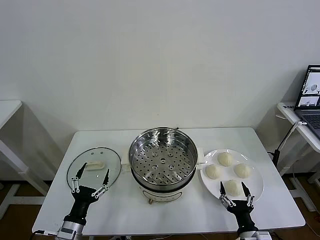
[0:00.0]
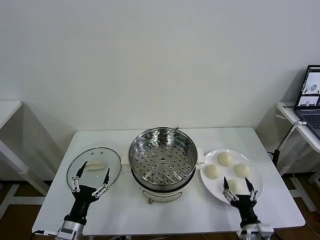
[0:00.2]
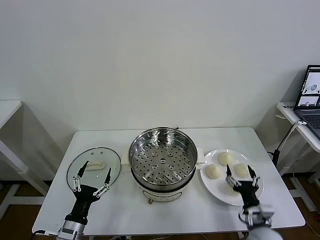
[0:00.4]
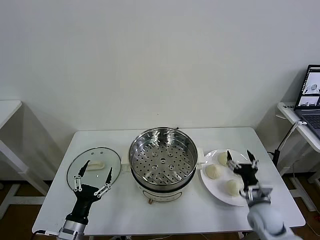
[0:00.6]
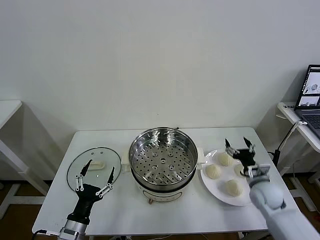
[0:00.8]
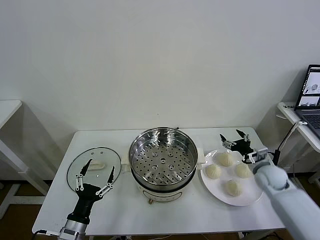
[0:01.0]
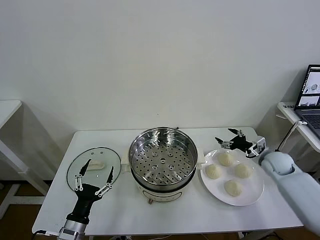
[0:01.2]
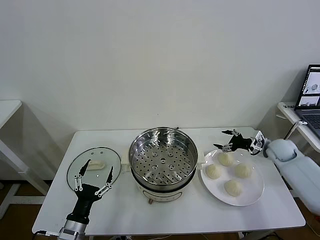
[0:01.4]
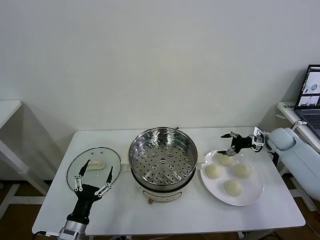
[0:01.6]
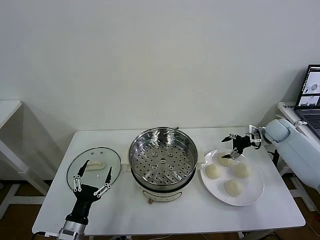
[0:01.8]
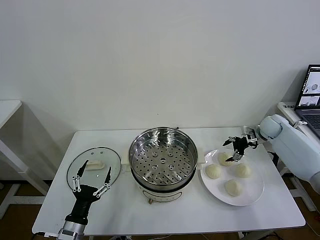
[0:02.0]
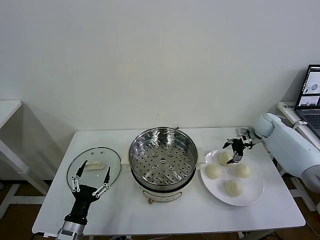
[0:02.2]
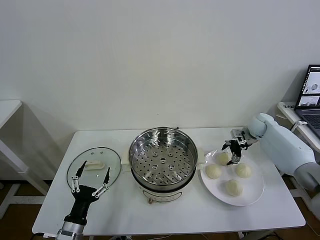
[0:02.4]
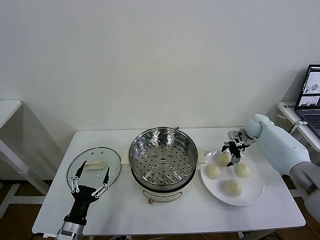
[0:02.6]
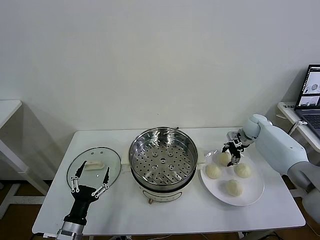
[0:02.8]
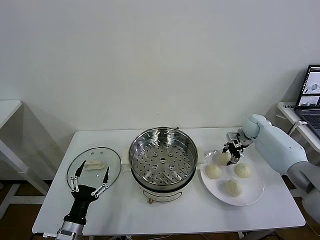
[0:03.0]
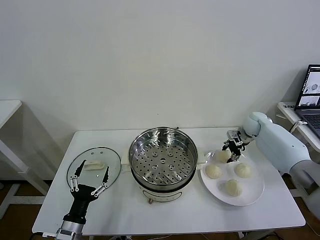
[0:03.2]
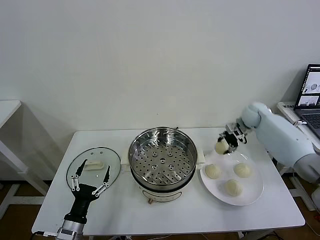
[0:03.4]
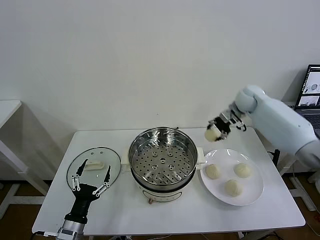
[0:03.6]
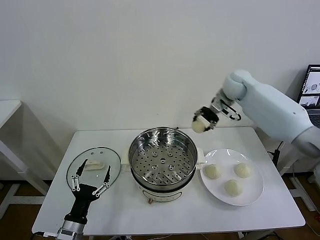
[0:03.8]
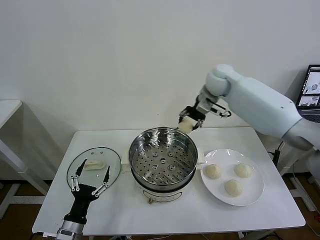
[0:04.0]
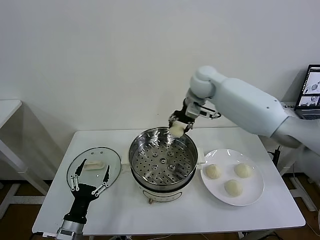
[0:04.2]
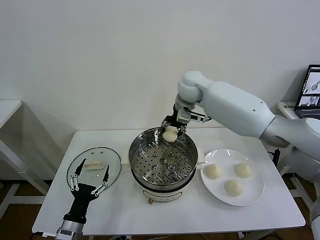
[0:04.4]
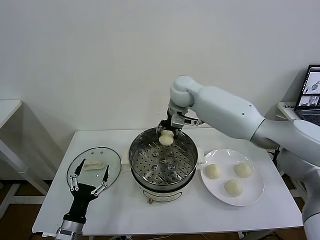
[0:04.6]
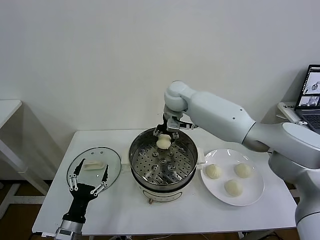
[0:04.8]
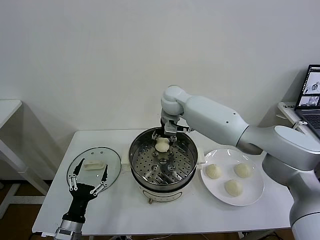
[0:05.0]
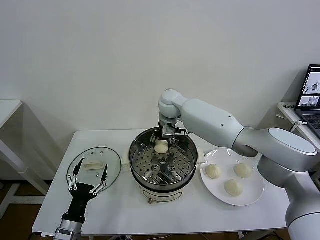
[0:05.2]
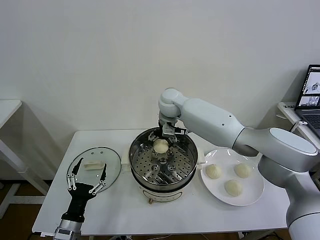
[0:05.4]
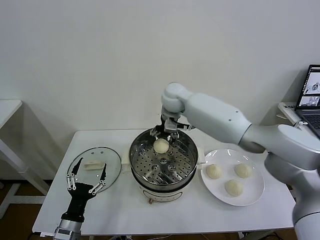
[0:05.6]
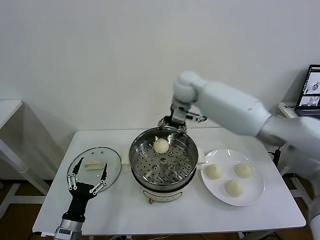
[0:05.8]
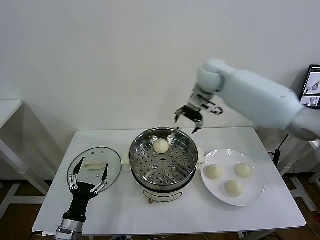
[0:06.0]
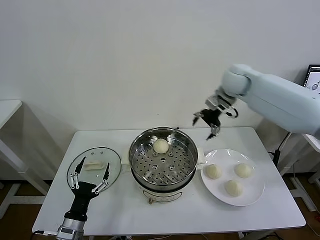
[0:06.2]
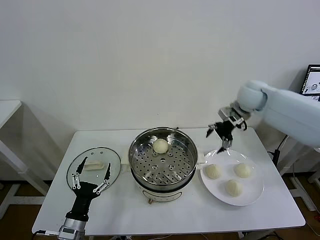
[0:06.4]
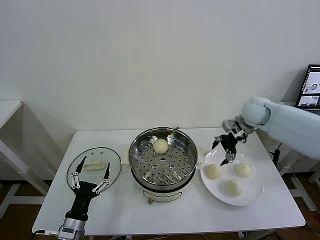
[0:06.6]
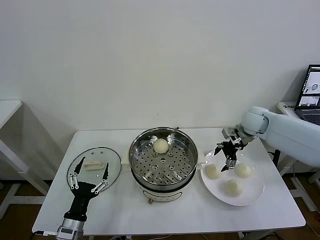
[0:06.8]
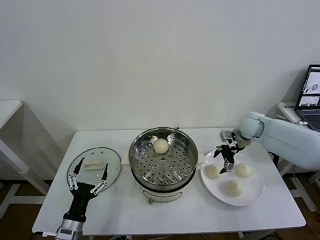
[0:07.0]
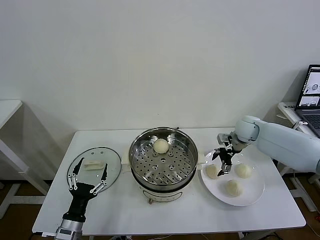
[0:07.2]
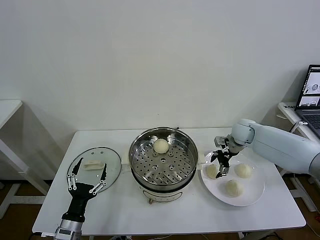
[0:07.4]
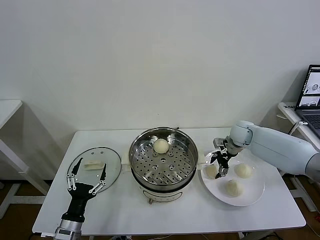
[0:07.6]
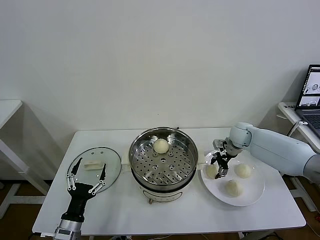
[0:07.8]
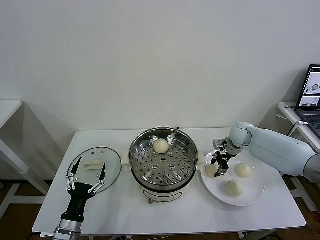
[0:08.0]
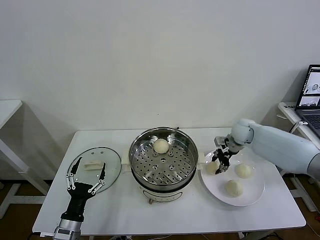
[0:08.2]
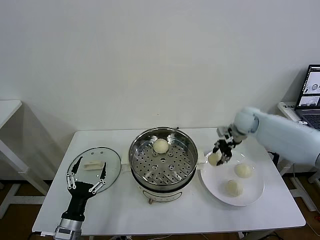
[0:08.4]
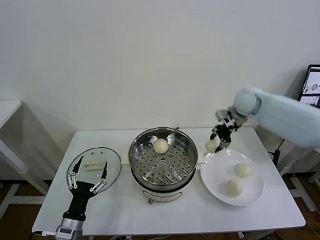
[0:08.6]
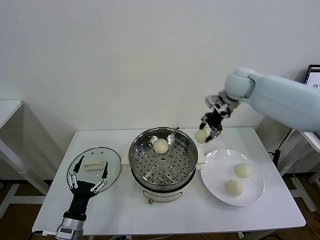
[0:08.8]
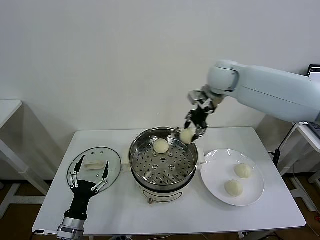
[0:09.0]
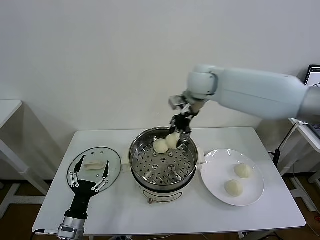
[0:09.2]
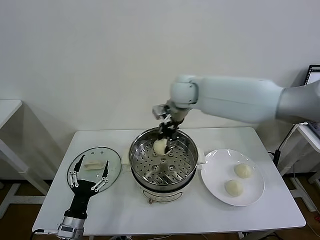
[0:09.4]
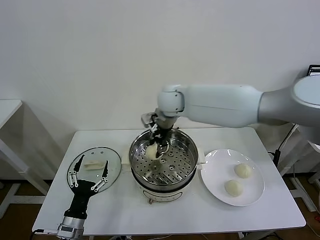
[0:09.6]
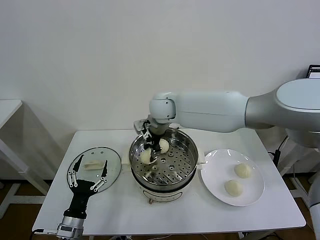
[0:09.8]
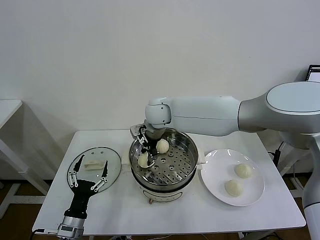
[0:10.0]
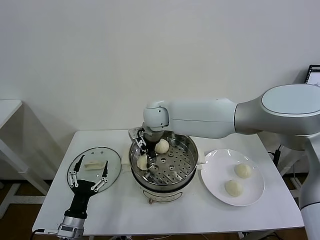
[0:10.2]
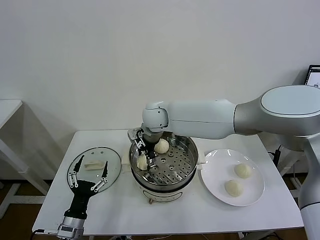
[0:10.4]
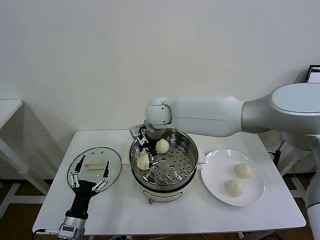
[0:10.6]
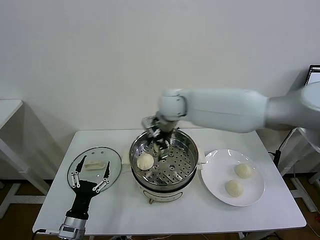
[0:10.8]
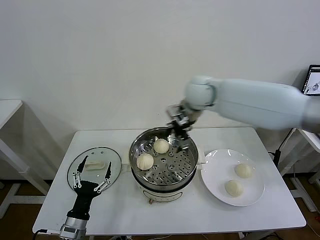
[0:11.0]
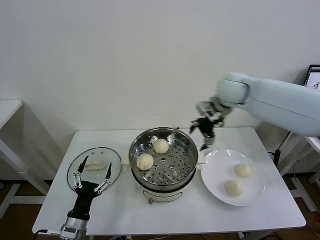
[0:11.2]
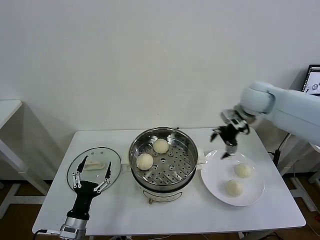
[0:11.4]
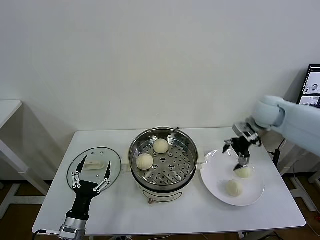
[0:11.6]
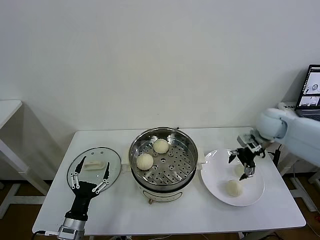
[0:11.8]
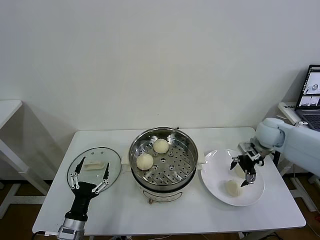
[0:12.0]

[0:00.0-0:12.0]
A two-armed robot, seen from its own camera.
Task of the whole recording: take steamed baozi put them in steamer then cover it.
Step, 0:00.0 to 0:02.8: Grasp the baozi in the plate with right gripper.
Step, 0:03.0 to 0:05.4: Place the baozi on the steamer with right gripper.
Step, 0:05.6 to 0:07.8: Grasp the baozi in the plate with right gripper.
Step, 0:08.0 to 0:10.4: Place the baozi on the steamer with right gripper.
0:01.6 to 0:03.0: The right gripper moves to the left and forward, approximately 10 cm, and closes its fingers.
0:03.0 to 0:04.4: The right gripper heads to the left and upward, covering about 35 cm.
0:04.4 to 0:06.0: The right gripper is displaced to the right by about 10 cm, and opens its fingers.
0:06.0 to 0:07.6: The right gripper travels downward and to the right by roughly 25 cm.
0:07.6 to 0:09.0: The right gripper heads upward and to the left, covering roughly 30 cm, and closes.
0:09.0 to 0:10.4: The right gripper travels to the left and downward by roughly 20 cm, and opens.
0:10.4 to 0:12.0: The right gripper moves to the right, roughly 40 cm.

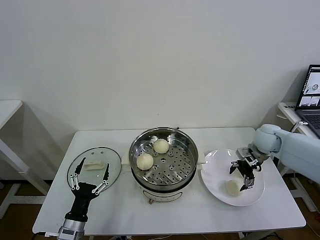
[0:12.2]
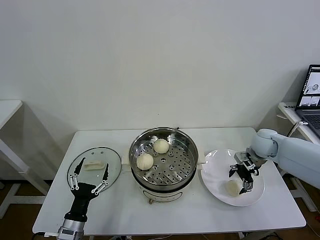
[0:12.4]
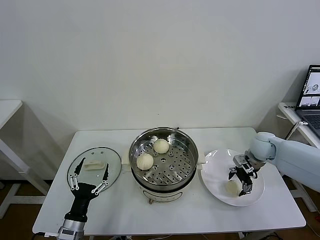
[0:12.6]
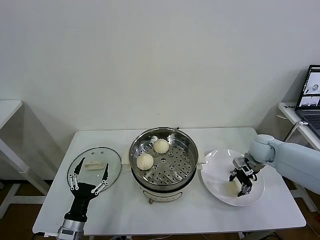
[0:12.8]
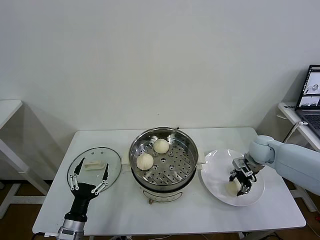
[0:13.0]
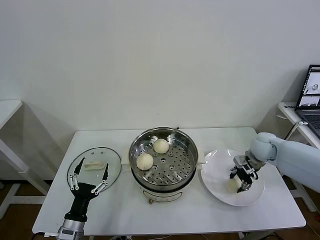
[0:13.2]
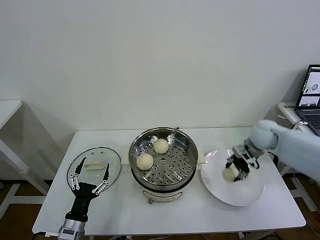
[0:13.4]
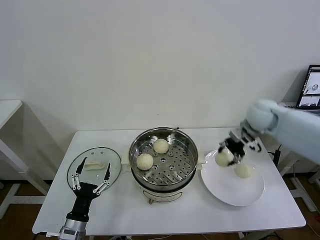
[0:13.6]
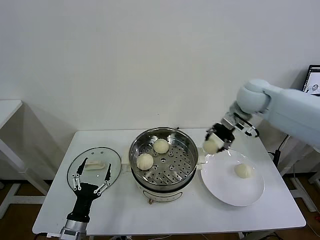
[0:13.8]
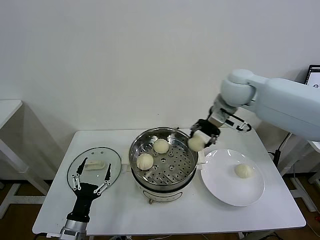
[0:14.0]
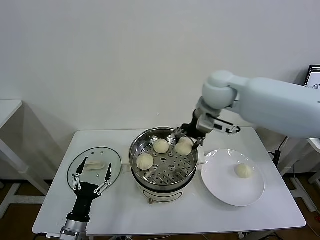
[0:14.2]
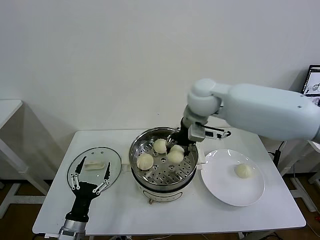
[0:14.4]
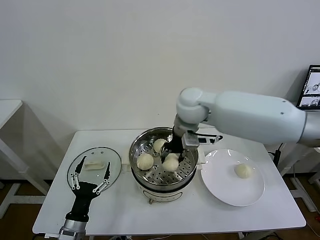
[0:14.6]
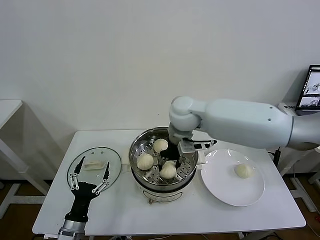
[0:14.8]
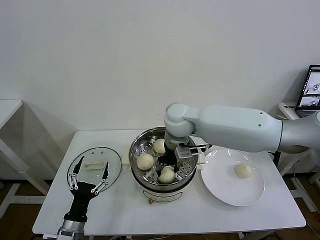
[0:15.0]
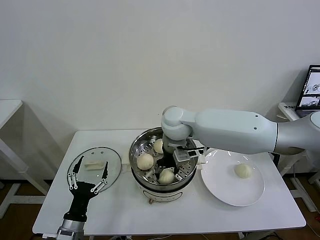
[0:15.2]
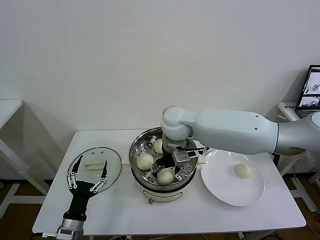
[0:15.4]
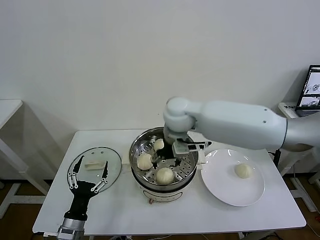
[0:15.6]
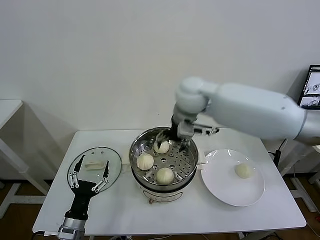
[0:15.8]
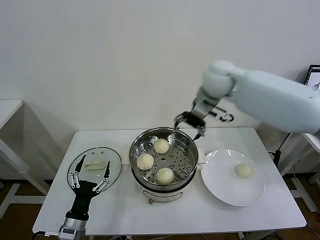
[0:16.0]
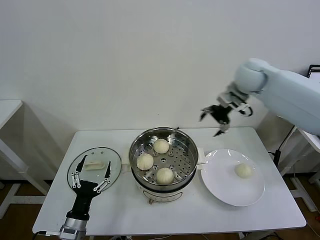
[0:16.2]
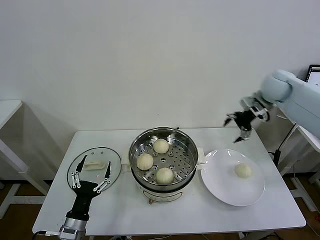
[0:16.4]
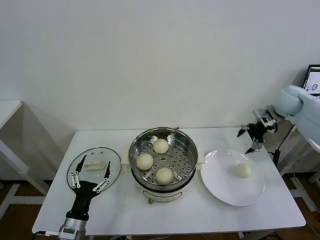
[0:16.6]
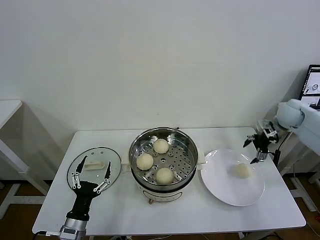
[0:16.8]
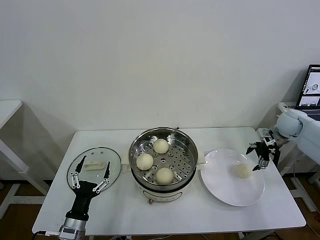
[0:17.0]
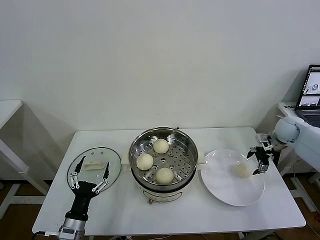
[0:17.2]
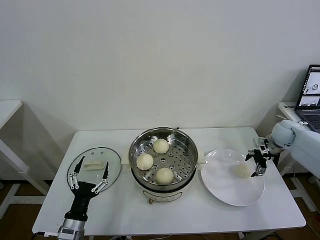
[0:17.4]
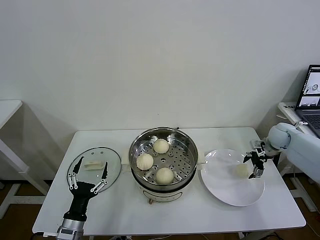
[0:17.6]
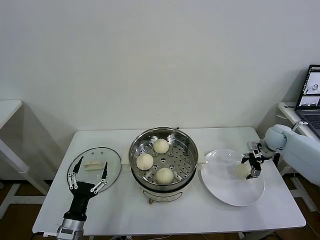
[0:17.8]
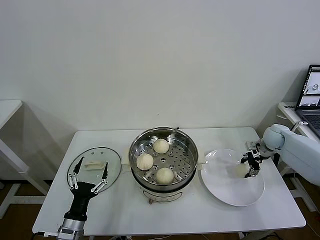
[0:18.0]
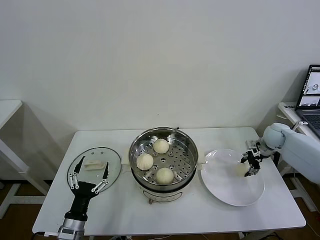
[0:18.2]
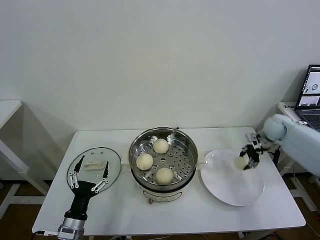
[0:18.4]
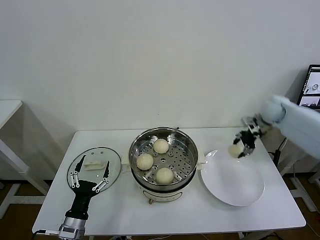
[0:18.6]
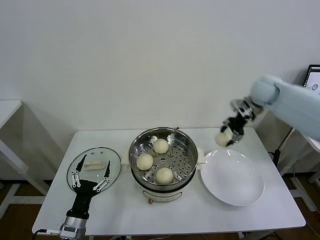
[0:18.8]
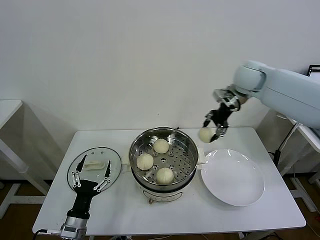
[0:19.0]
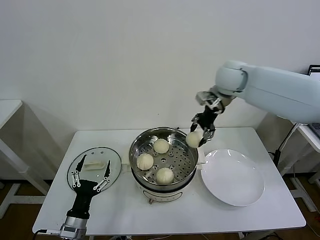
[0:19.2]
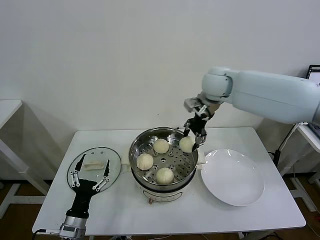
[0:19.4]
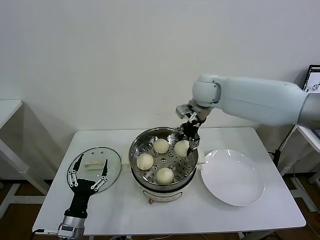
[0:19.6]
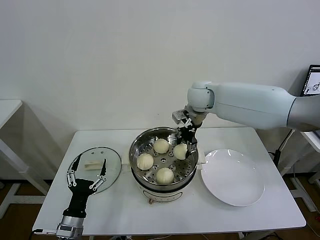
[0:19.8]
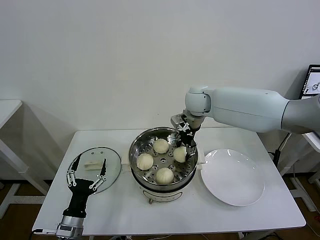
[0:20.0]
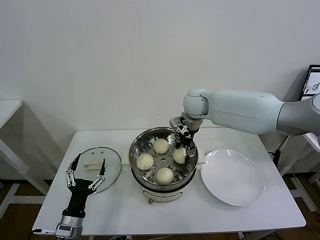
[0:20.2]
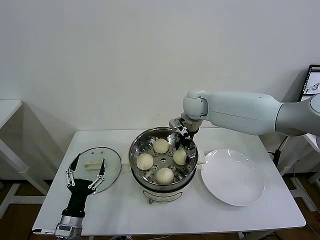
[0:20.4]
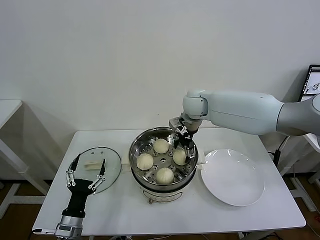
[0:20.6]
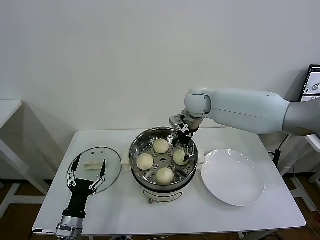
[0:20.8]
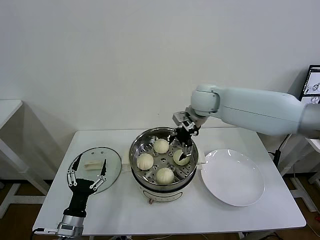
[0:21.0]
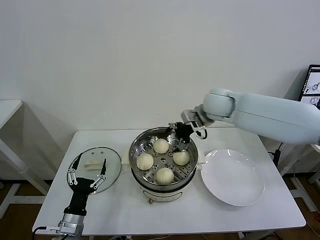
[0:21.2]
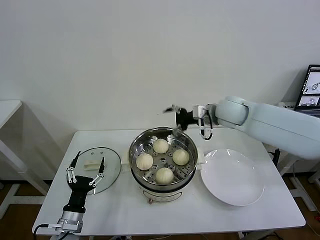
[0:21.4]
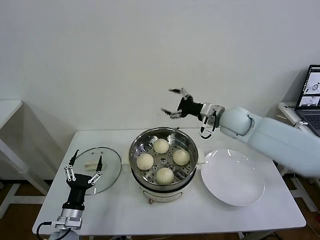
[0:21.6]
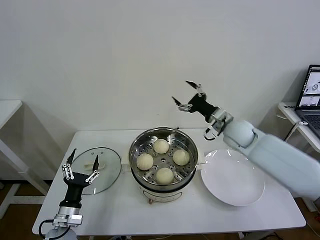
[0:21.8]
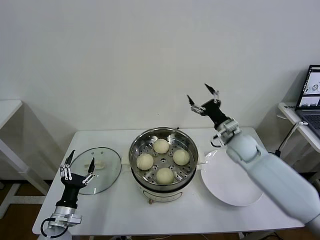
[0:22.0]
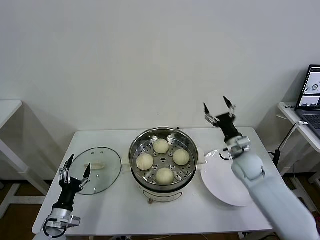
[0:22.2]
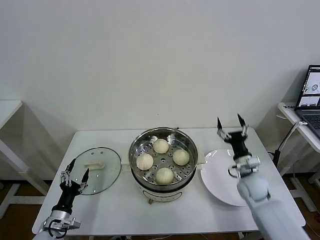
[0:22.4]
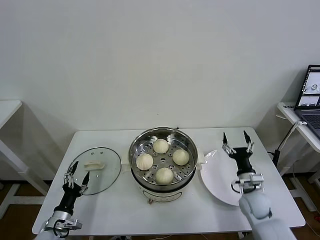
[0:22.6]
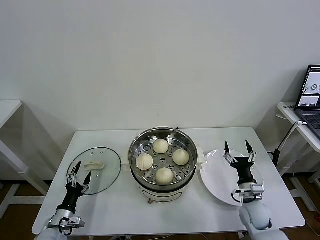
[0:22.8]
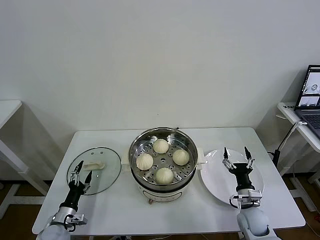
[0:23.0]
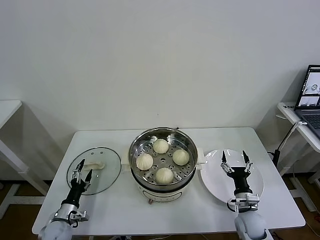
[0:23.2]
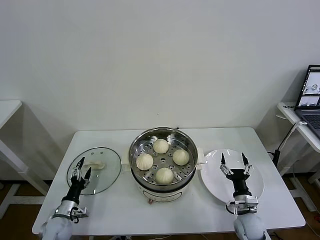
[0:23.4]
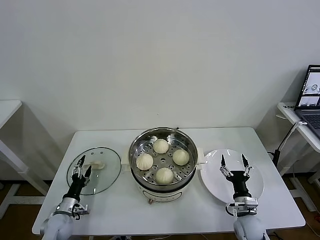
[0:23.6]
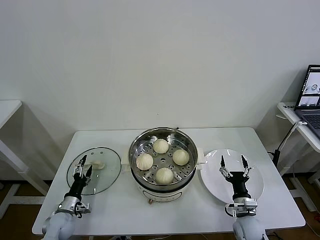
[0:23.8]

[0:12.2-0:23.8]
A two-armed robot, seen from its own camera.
Task of the whole recording: take steamed baozi put them in steamer then cover it.
Step, 0:13.2 to 0:15.4: Place the baozi on the steamer with right gripper.
Step, 0:15.6 to 0:18.0: Grasp the baozi in the plate with right gripper.
Step, 0:18.2 to 0:20.6: Place the baozi on the steamer with right gripper.
0:12.2 to 0:13.6: The right gripper heads upward and to the left, covering approximately 15 cm, and closes its fingers.
0:13.6 to 0:15.0: The right gripper moves to the left, approximately 25 cm.
0:15.0 to 0:16.6: The right gripper travels to the right by roughly 40 cm, and opens its fingers.
0:16.6 to 0:18.0: The right gripper heads downward, covering about 15 cm, and closes up.
0:18.0 to 0:19.4: The right gripper goes some 35 cm to the left and upward.
0:19.4 to 0:21.0: The right gripper opens its fingers.
0:21.0 to 0:22.4: The left gripper goes roughly 10 cm to the left. Meanwhile the right gripper shifts about 35 cm downward, to the right and backward.
0:22.4 to 0:23.8: The left gripper heads forward and downward, covering roughly 10 cm. Meanwhile the right gripper travels backward and downward by roughly 15 cm.
